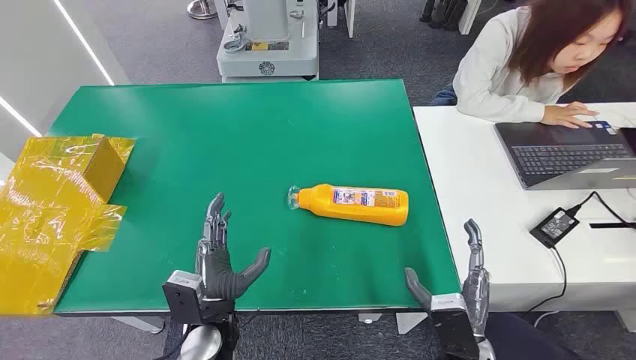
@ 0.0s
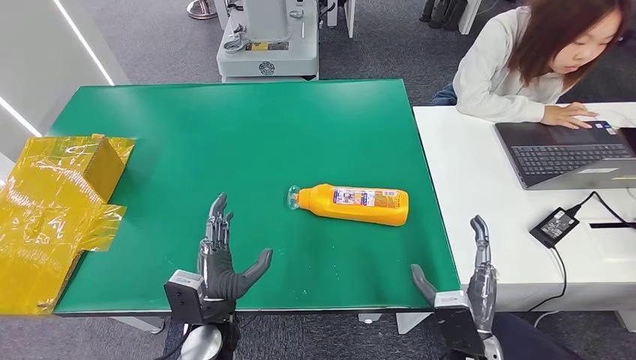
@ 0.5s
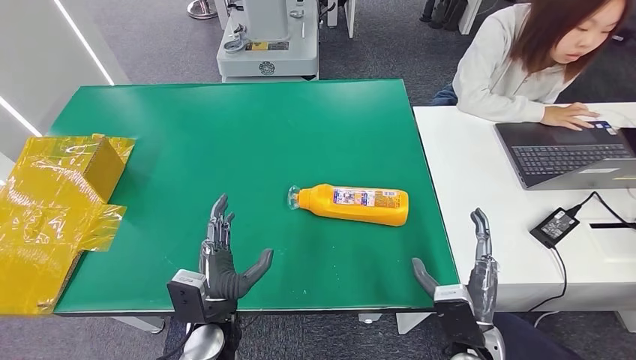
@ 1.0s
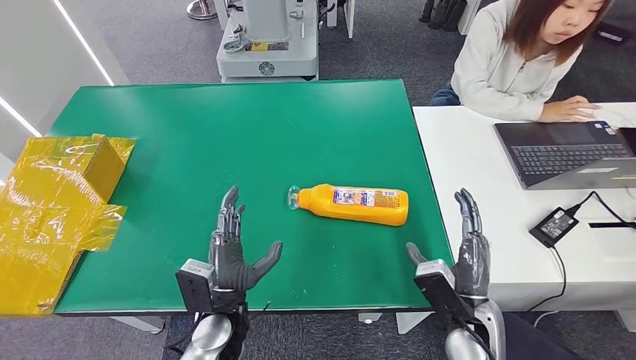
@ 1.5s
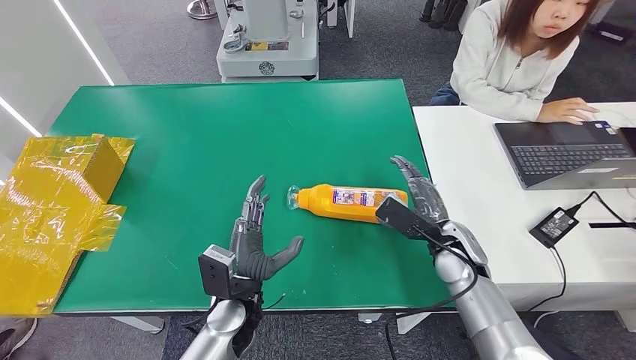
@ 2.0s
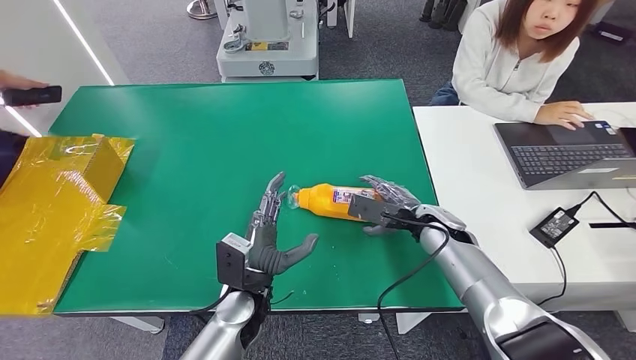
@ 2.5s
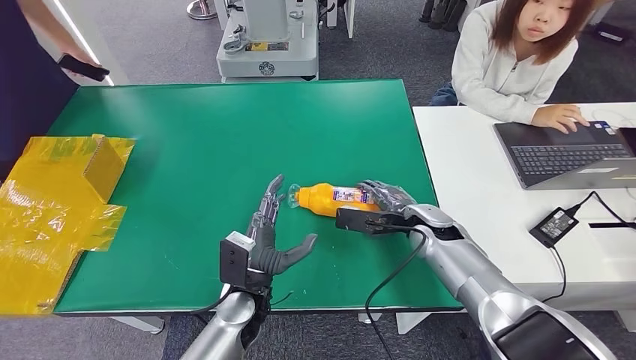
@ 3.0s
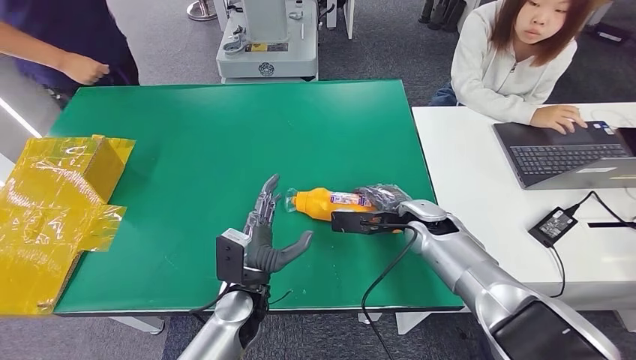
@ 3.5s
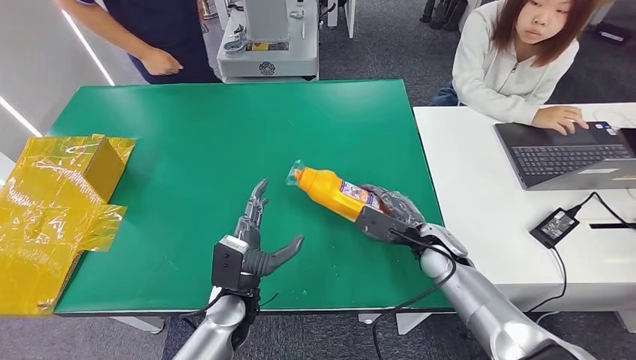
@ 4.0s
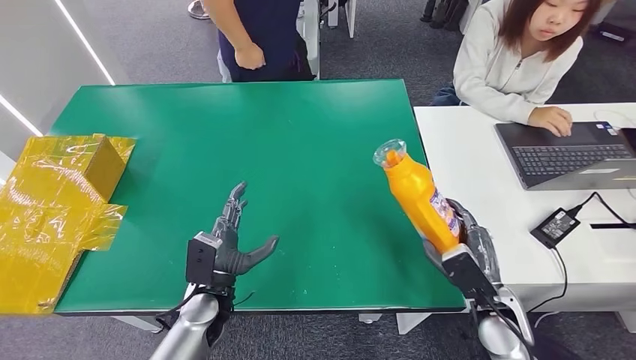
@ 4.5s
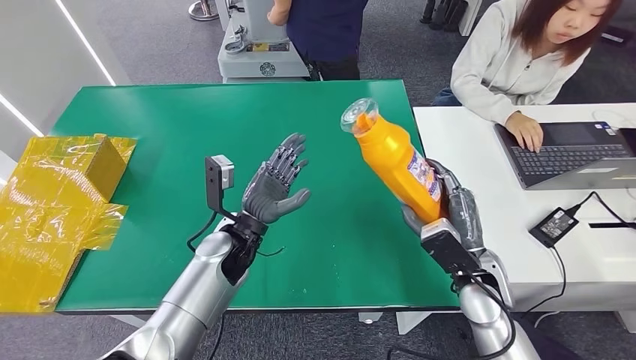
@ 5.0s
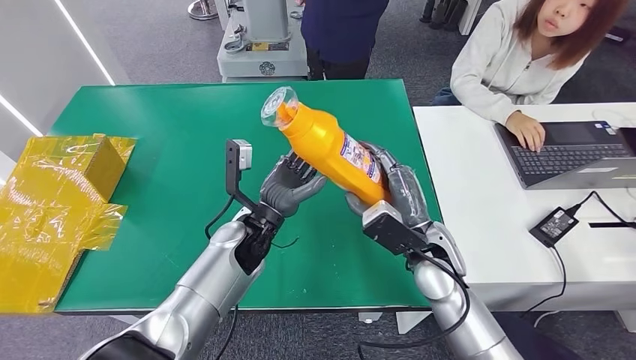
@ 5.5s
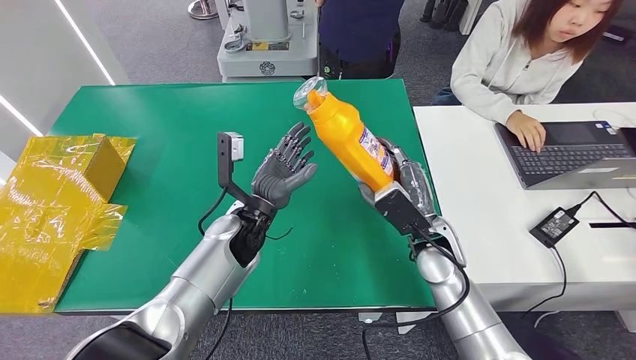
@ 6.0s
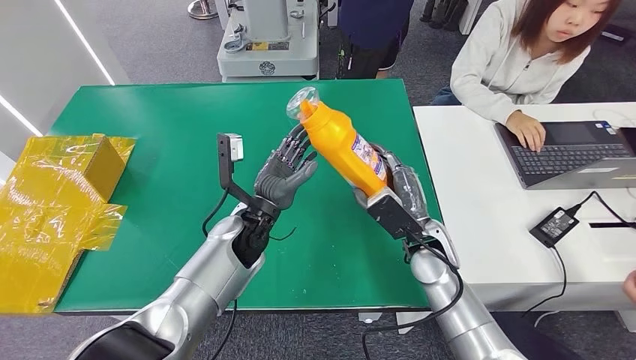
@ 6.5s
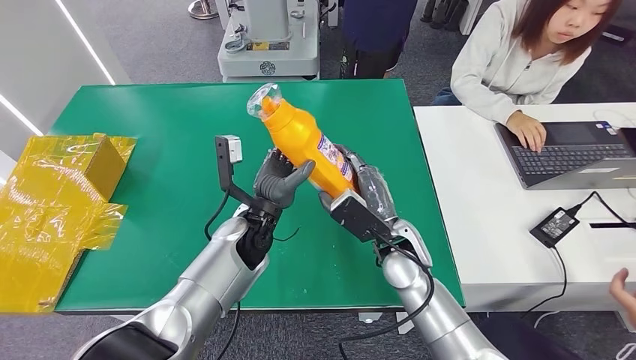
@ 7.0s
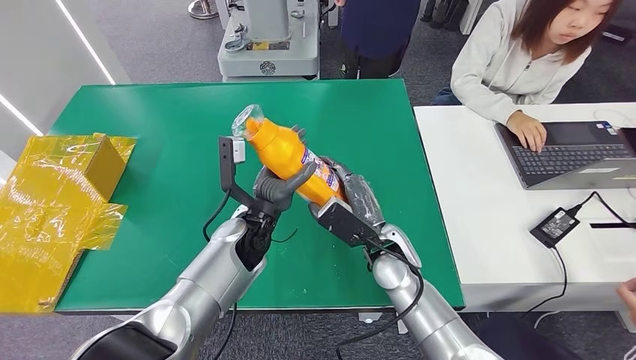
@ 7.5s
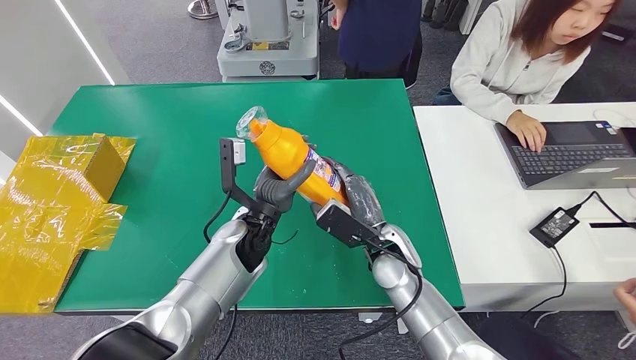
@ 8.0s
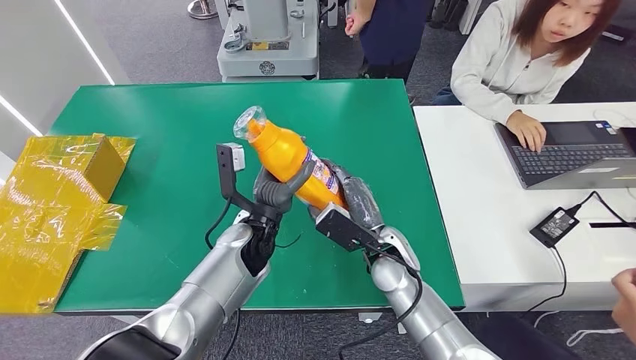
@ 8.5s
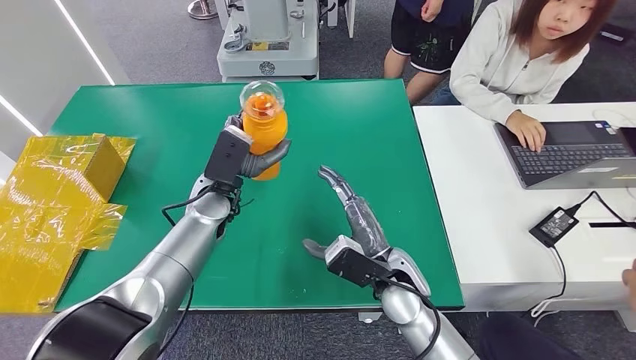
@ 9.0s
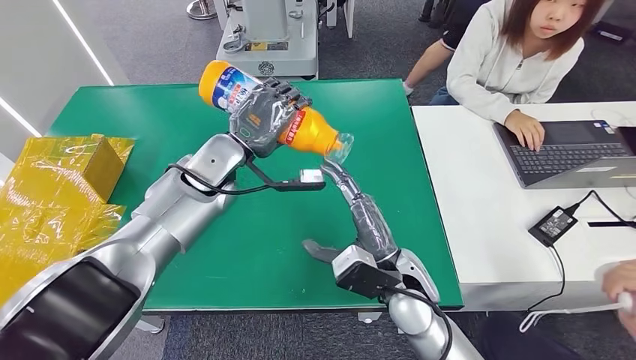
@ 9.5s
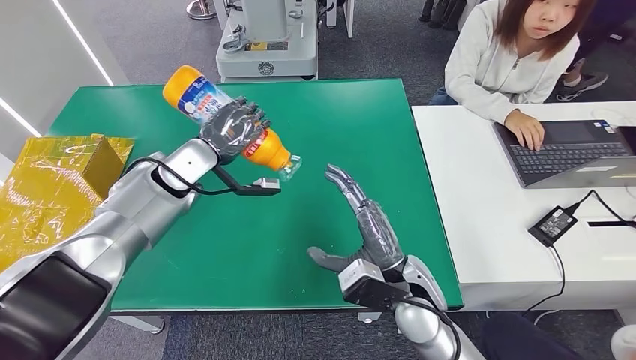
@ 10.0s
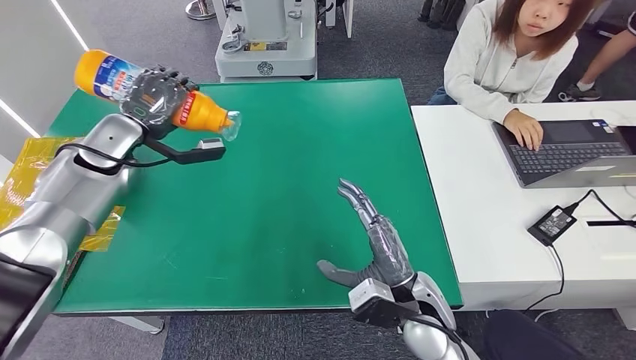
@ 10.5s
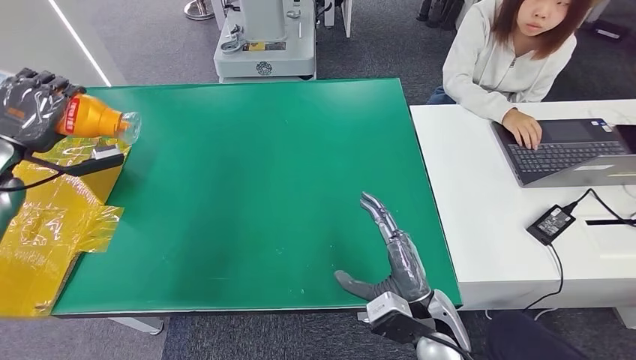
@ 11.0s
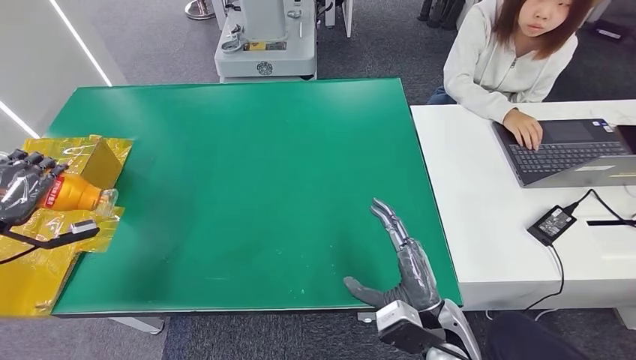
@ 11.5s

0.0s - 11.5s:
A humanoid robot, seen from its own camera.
Step, 0.0s - 4.5s: Pick up the bottle from the table.
6.0s - 7.5s: The right hand goes roughly 10 cm to the left.

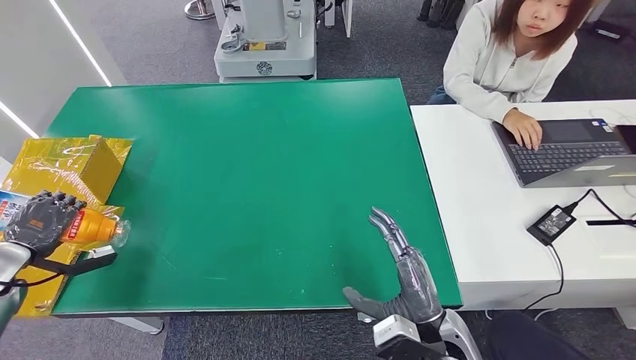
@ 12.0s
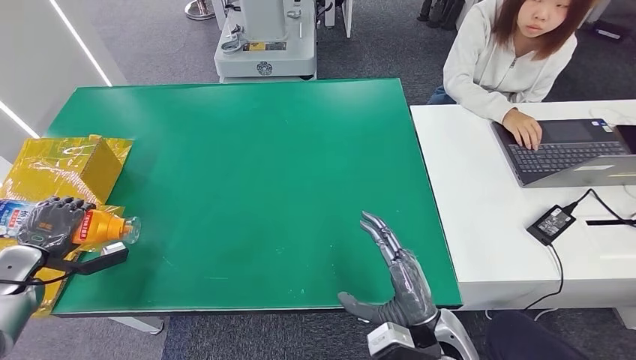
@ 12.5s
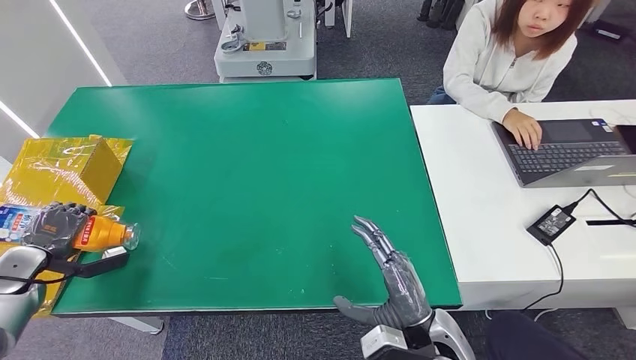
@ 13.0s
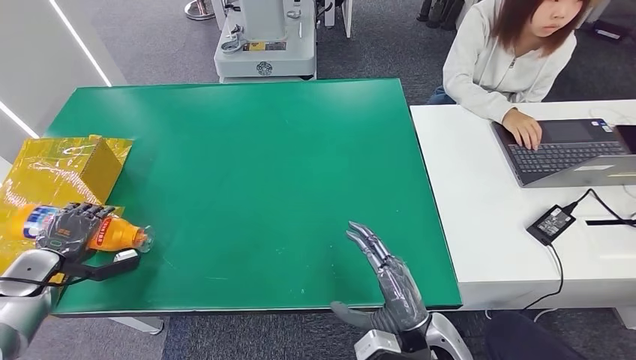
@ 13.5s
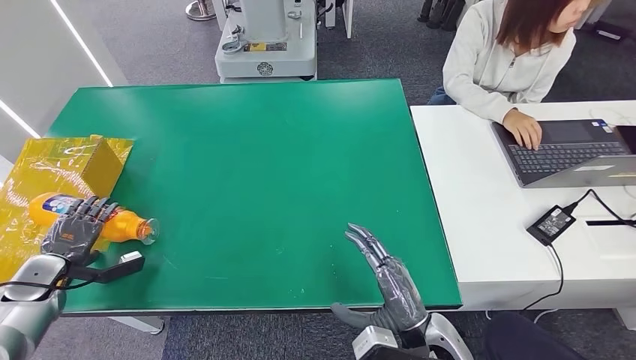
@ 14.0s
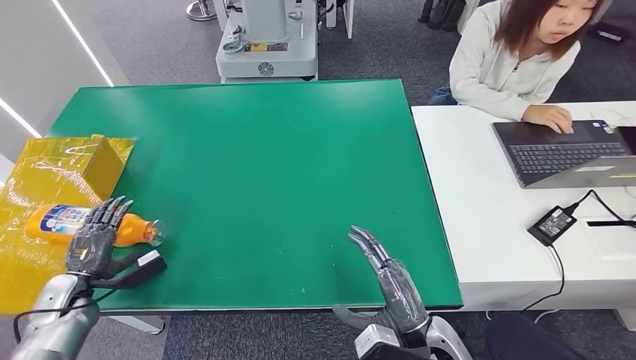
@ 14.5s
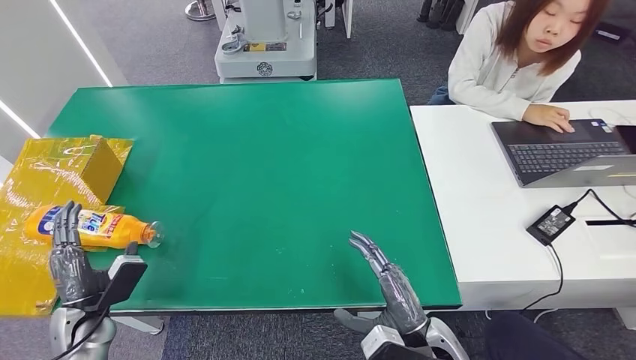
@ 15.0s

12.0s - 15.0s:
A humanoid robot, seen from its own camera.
Step, 12.0s - 15.0s: Turn the bottle to the front side.
12.0s - 13.5s: The hands stay close to where they were, moving slightly.
13.5s - 15.0s: The left hand heads to the right and backward, covering approximately 15 cm.

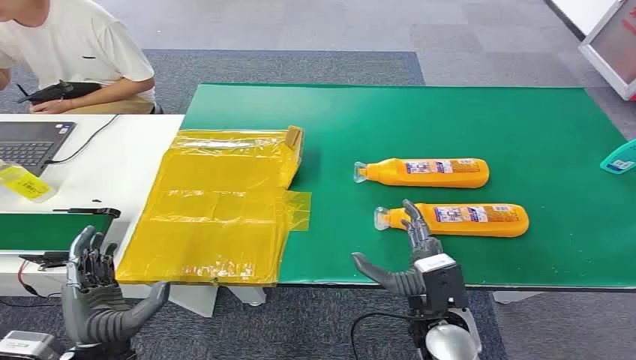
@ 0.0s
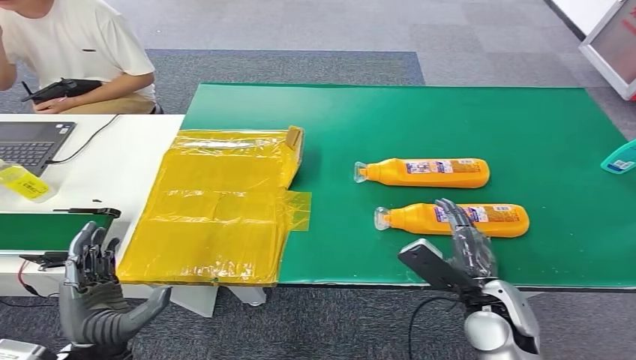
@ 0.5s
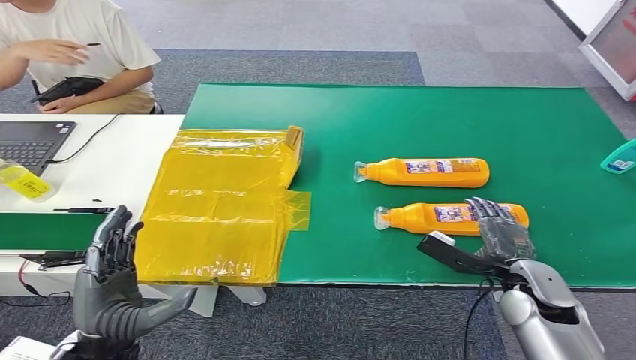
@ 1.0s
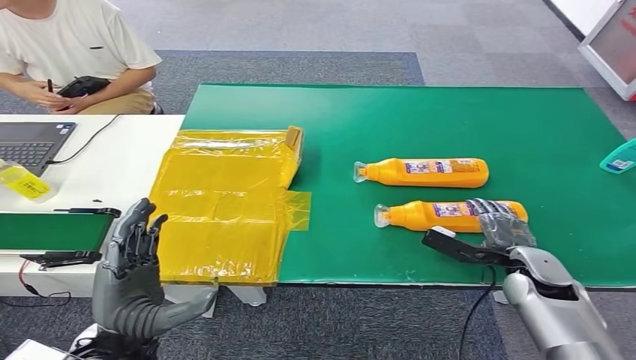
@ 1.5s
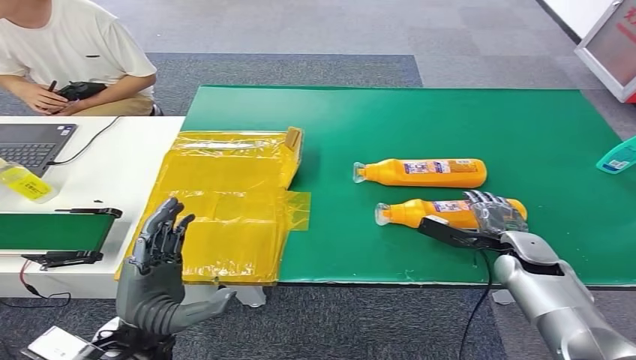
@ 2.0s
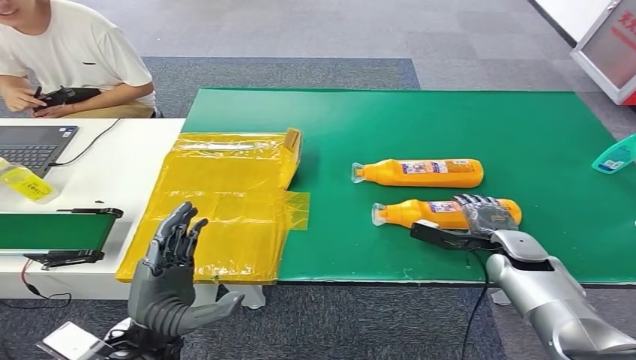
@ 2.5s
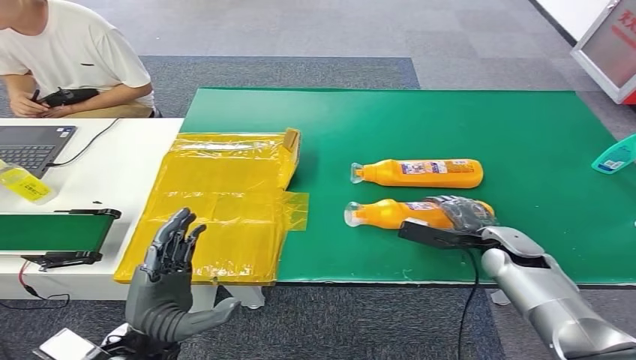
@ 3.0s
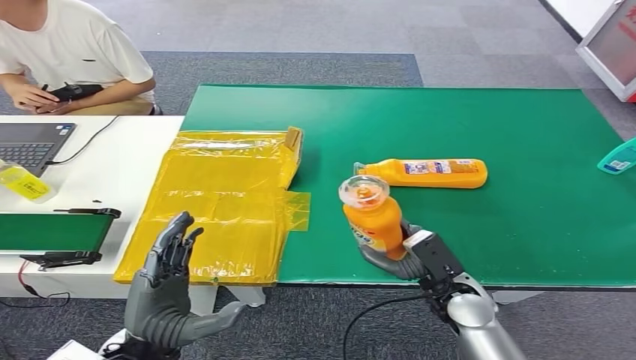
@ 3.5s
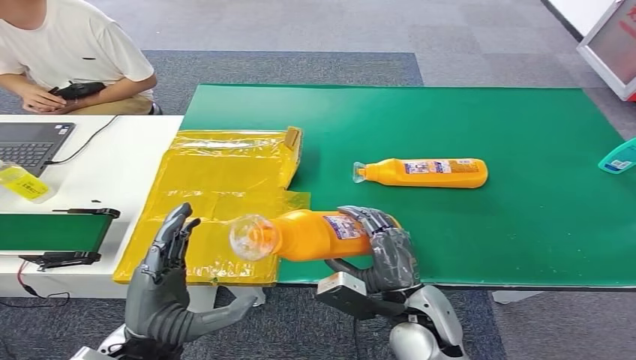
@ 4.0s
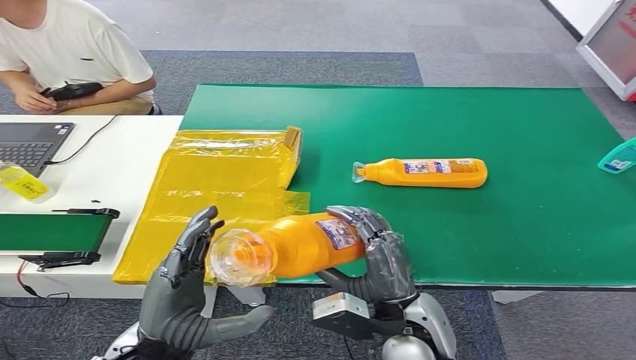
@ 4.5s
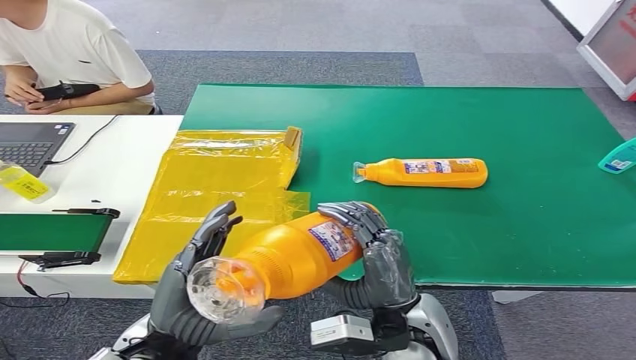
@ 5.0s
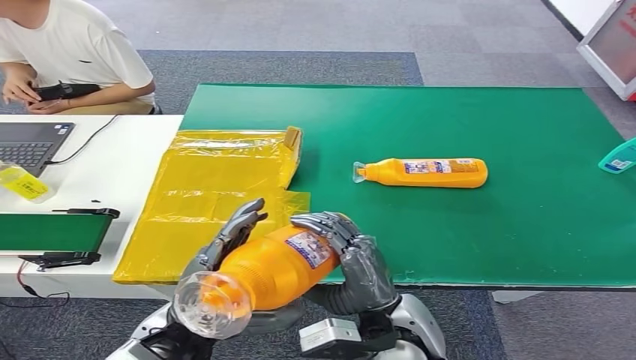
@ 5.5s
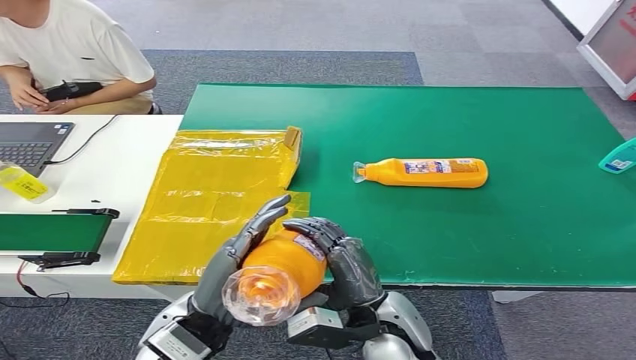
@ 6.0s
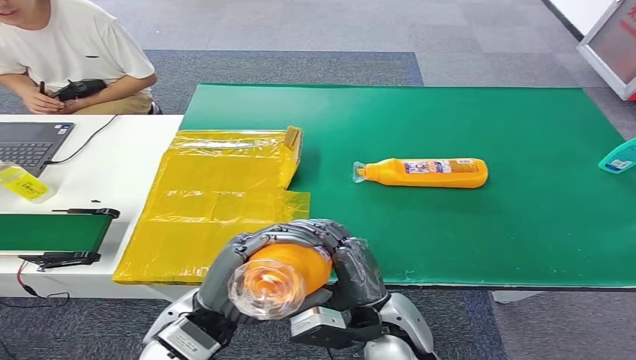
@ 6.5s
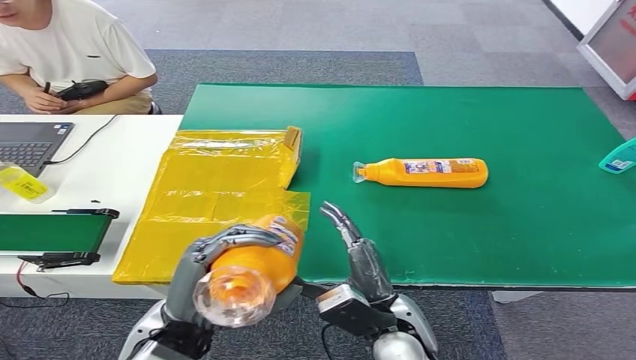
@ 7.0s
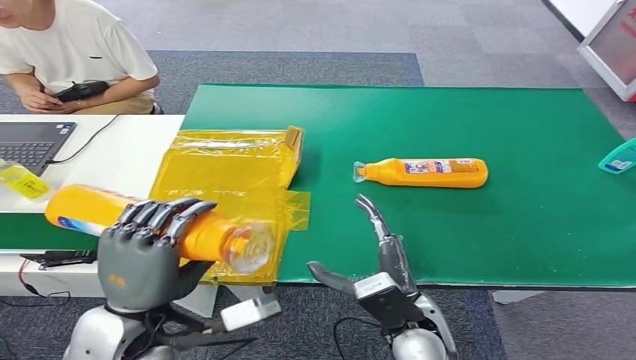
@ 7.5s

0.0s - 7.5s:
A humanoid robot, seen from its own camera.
Step, 0.0s - 5.0s: Pick up the bottle from the table.
2.0s - 4.0s: The right hand heads to the left and backward, covering about 25 cm.
4.0s - 5.5s: The right hand changes place by about 5 cm.
5.5s - 7.5s: The left hand changes place by approximately 5 cm.
